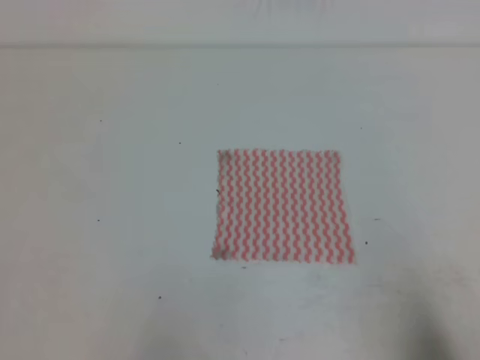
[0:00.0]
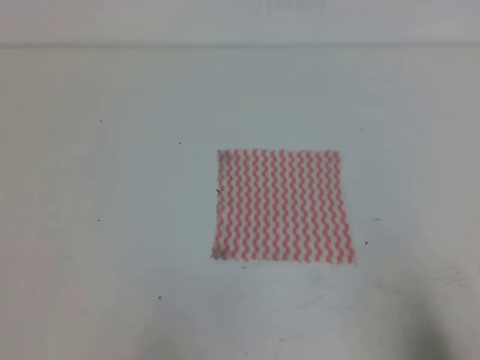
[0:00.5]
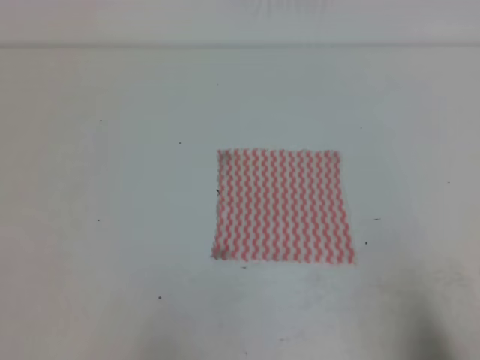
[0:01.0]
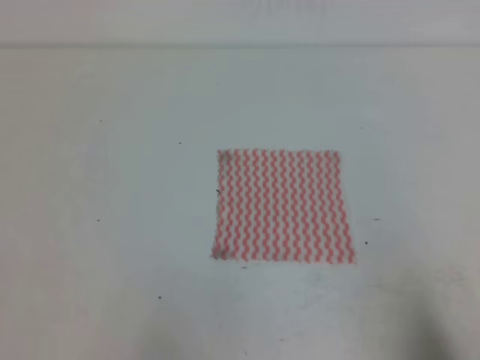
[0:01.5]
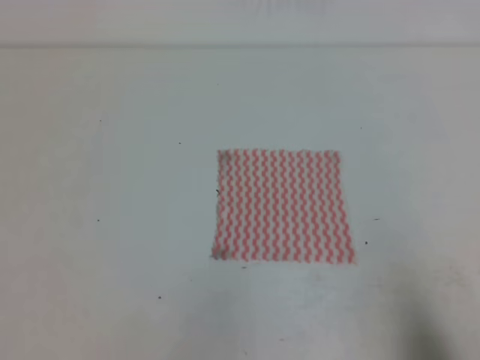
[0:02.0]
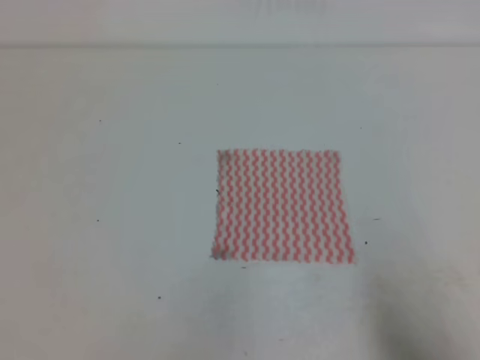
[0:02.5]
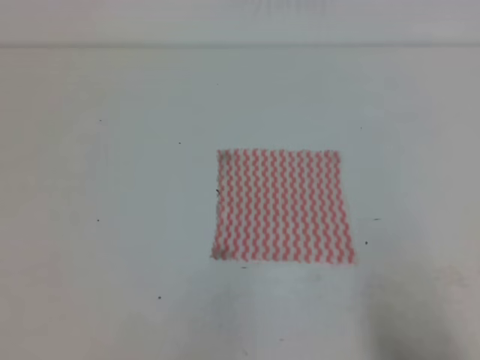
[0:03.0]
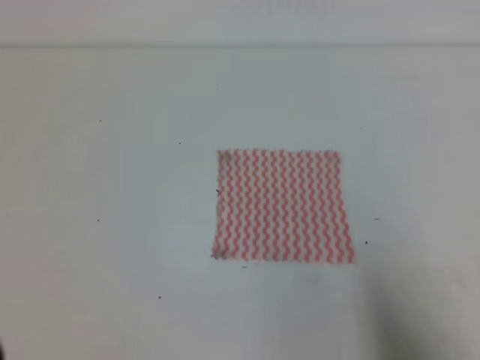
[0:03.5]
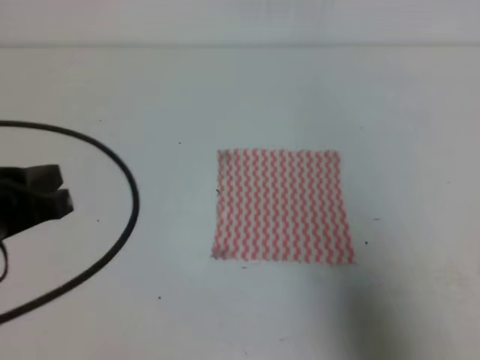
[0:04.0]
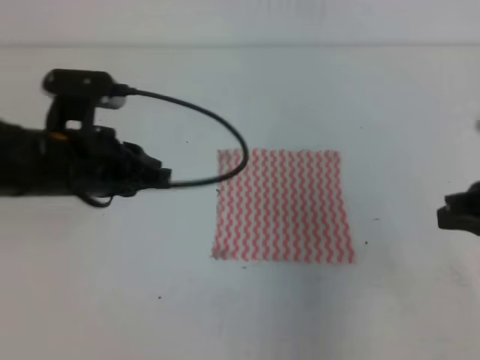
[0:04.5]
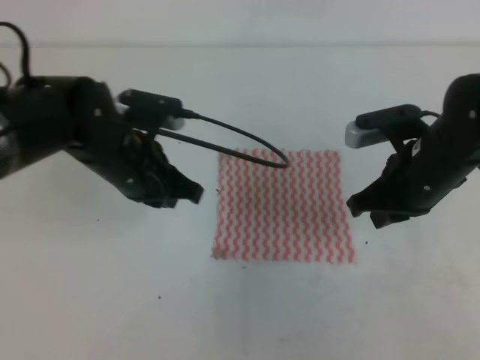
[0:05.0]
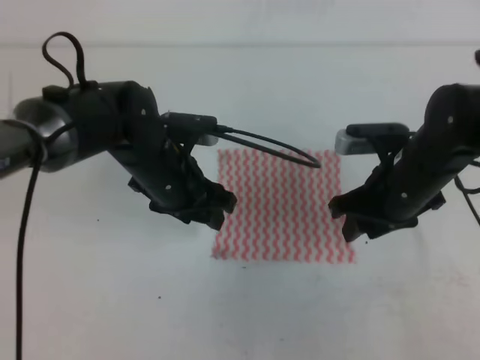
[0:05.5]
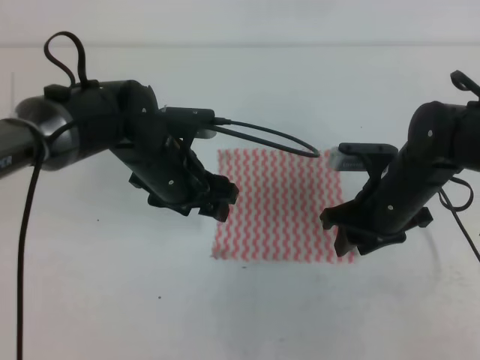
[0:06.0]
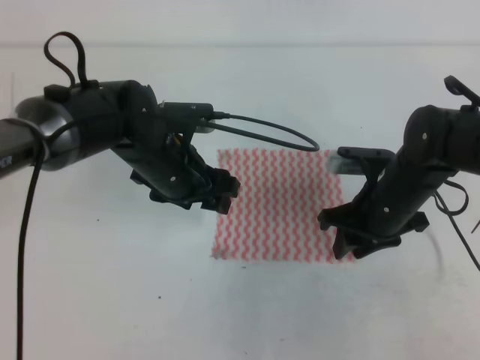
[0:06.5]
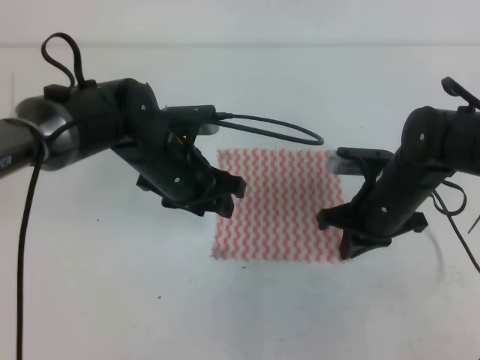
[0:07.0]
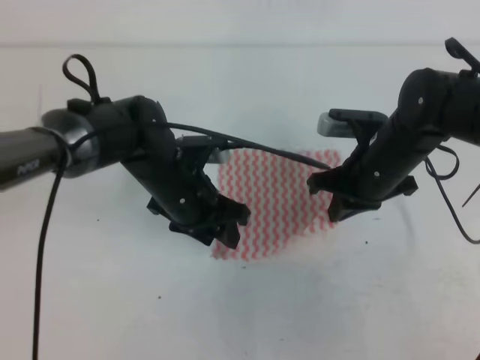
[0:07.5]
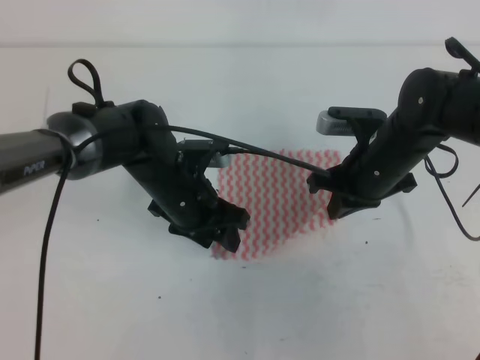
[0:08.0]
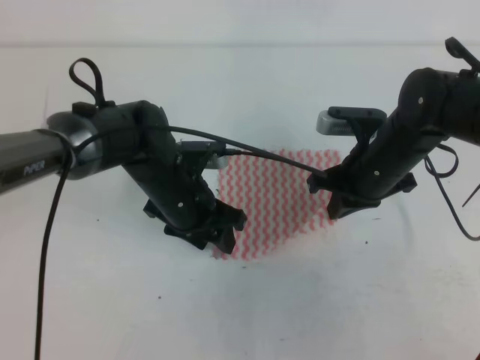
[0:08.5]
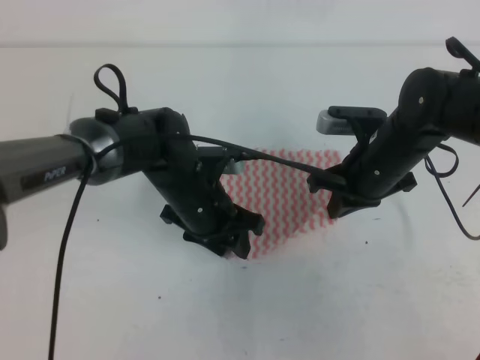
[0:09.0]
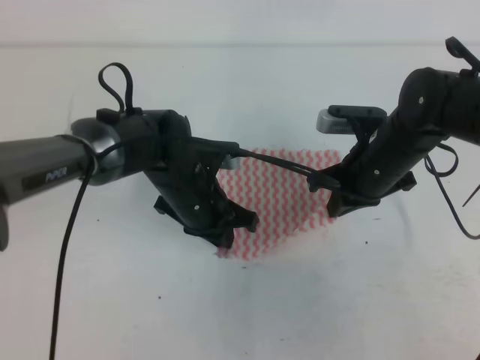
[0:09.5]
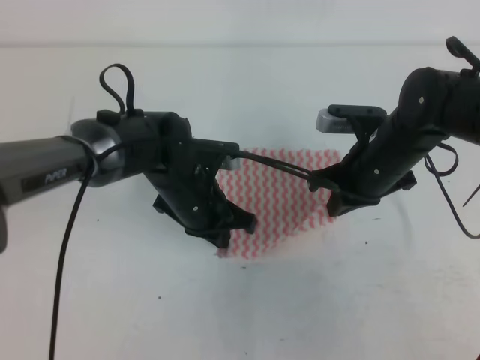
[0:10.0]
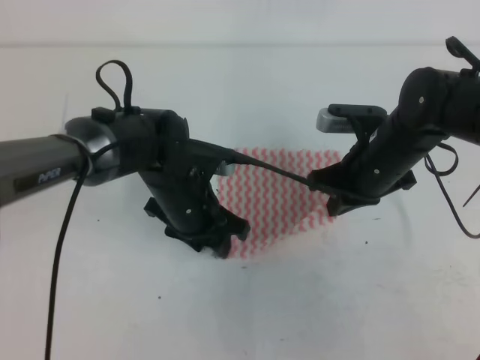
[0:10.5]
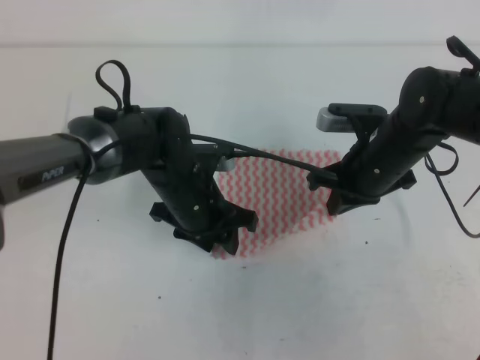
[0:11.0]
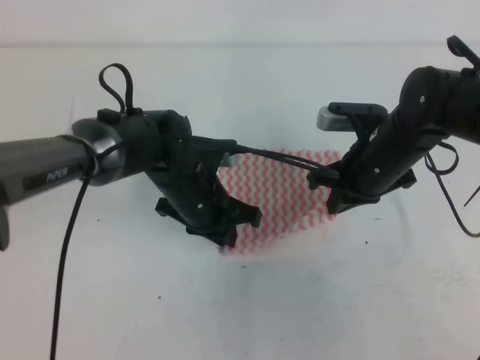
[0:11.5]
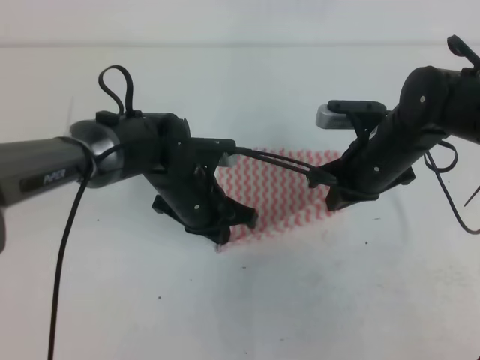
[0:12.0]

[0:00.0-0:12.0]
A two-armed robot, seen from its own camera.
0:02.0 to 0:04.0: The left gripper is displaced forward and upward by about 15 cm, while the right gripper shifts approximately 5 cm upward.
0:04.0 to 0:06.0: The right gripper shifts roughly 25 cm forward and to the left, and opens its fingers. Meanwhile the left gripper heads forward, to the right and downward, covering approximately 25 cm, and opens up.
0:06.0 to 0:08.0: The right gripper closes up.
0:08.0 to 0:10.0: The left gripper closes its fingers.
0:10.0 to 0:12.0: The left gripper opens, then closes once more.

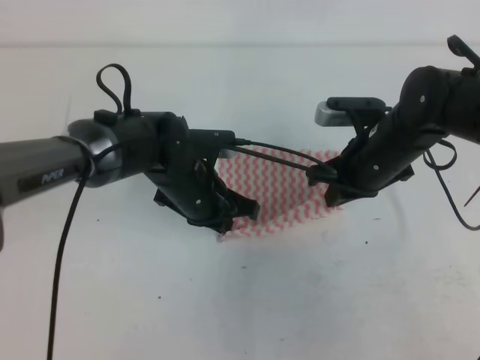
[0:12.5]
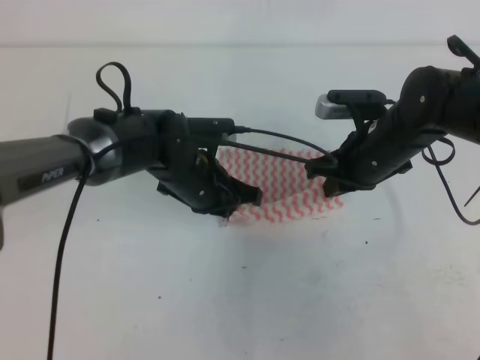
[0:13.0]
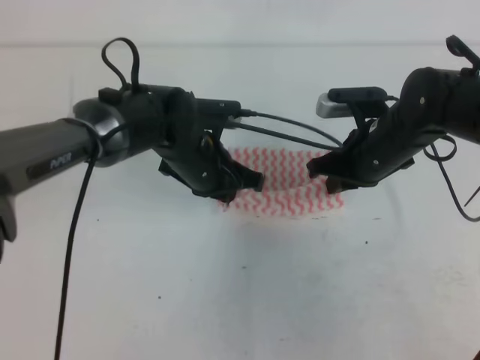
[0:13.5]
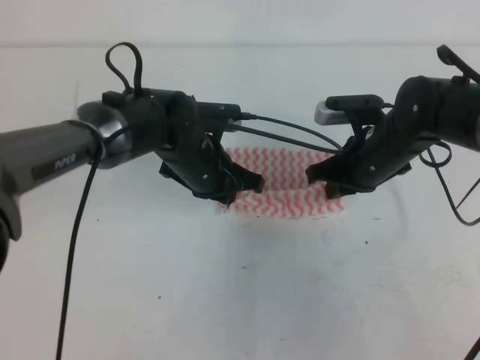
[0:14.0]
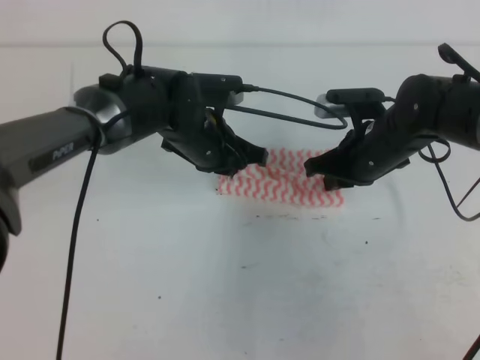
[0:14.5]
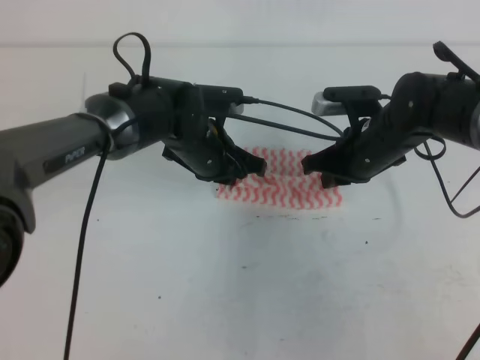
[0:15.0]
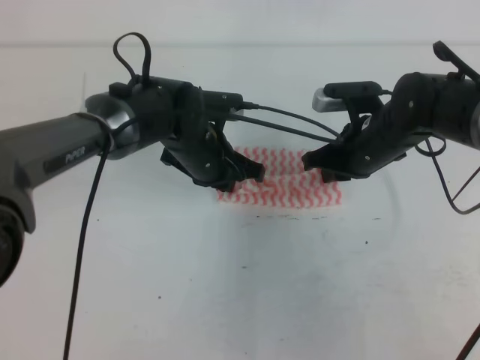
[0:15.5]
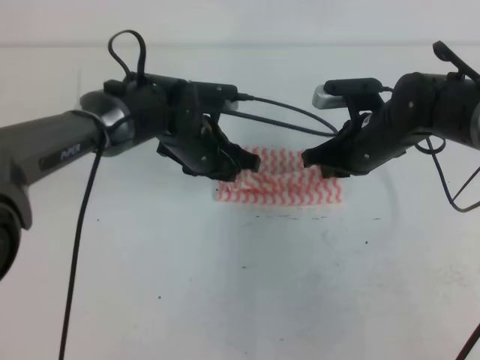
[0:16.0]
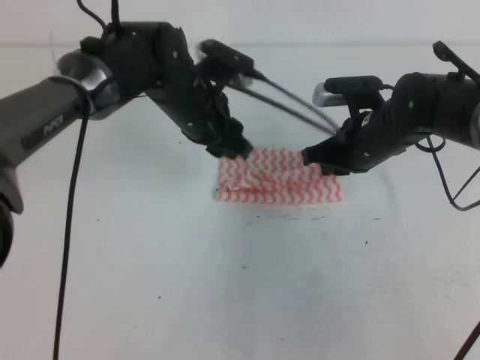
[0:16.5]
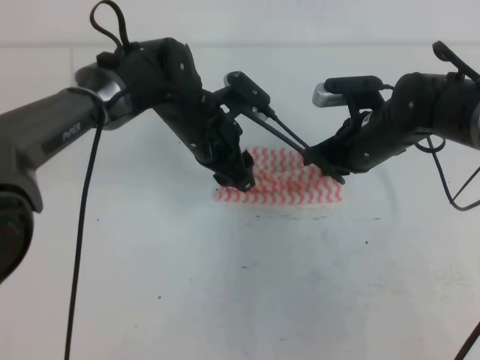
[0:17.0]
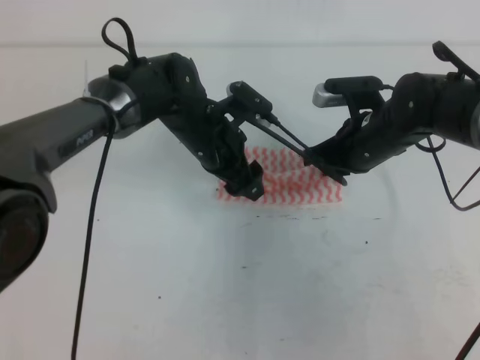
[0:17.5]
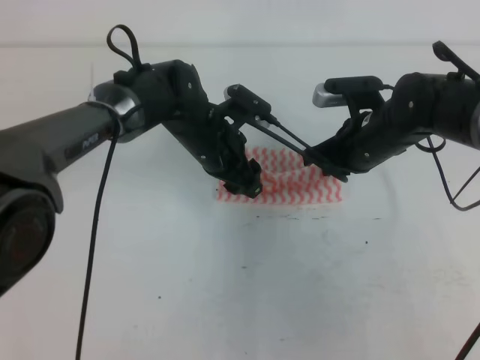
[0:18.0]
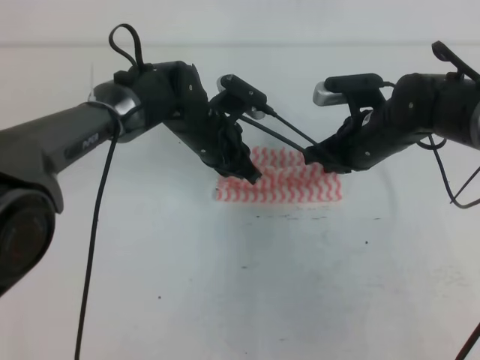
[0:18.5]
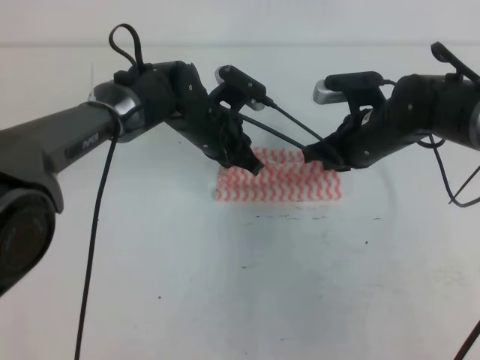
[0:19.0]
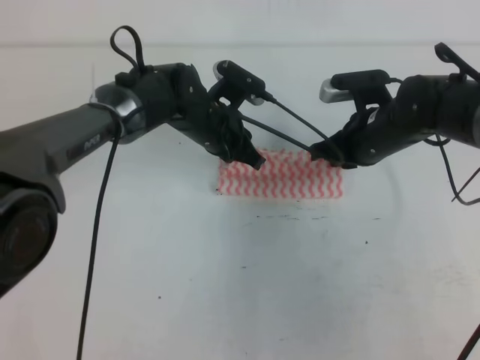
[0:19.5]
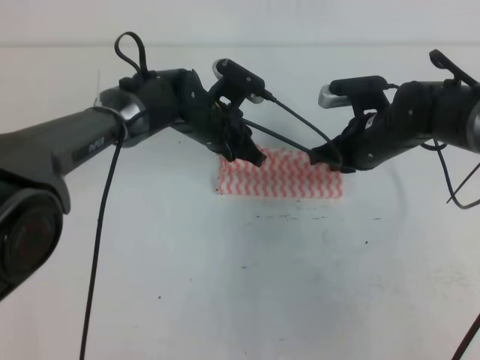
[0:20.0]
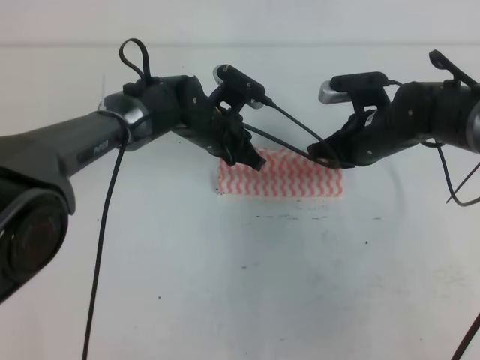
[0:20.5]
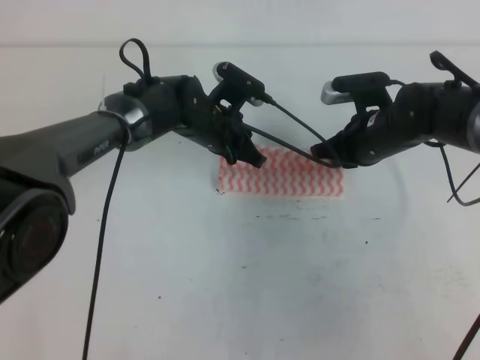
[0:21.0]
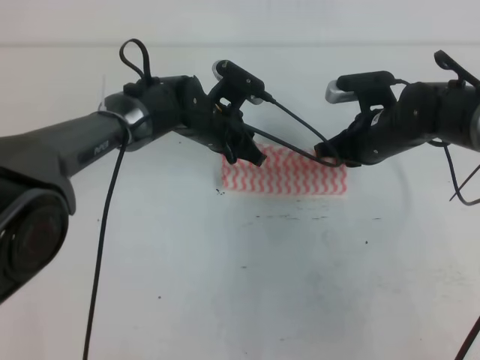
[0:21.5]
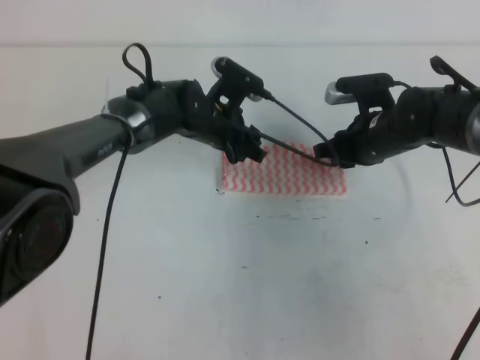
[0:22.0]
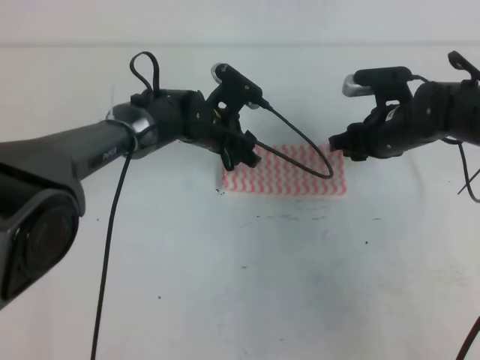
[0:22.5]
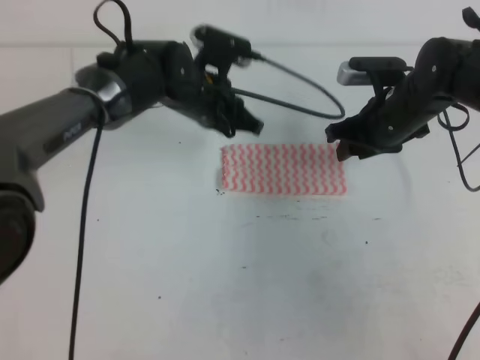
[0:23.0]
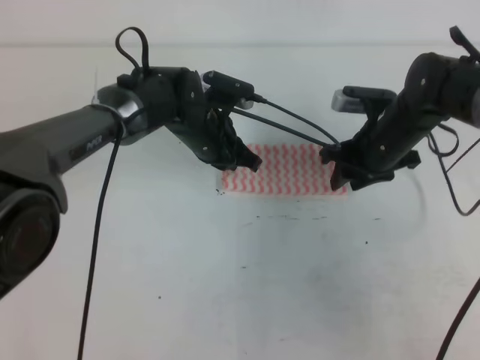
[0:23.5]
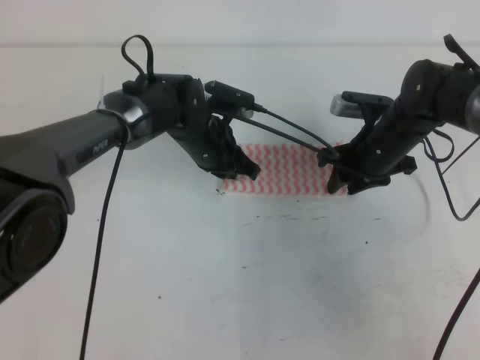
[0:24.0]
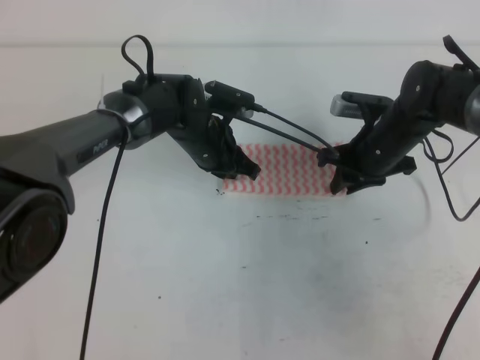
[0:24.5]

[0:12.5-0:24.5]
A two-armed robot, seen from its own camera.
0:12.5 to 0:14.5: The left gripper shifts by roughly 5 cm.
0:14.5 to 0:16.5: The left gripper opens.
0:16.5 to 0:18.5: The left gripper shifts by roughly 5 cm, and closes its fingers.
0:18.5 to 0:20.5: The grippers move only a little.
0:20.5 to 0:22.5: The left gripper opens its fingers. The right gripper opens.
0:22.5 to 0:24.5: The right gripper closes up; the left gripper closes its fingers.

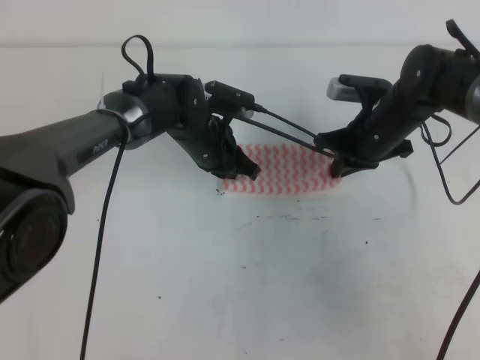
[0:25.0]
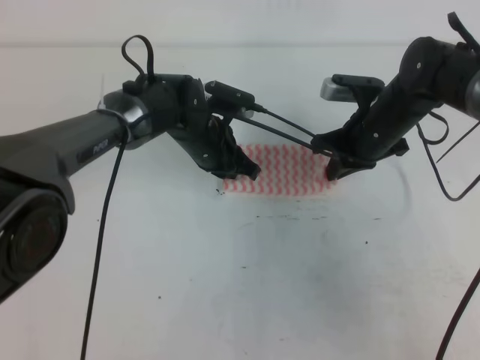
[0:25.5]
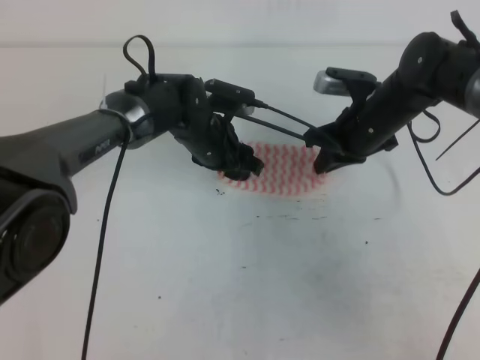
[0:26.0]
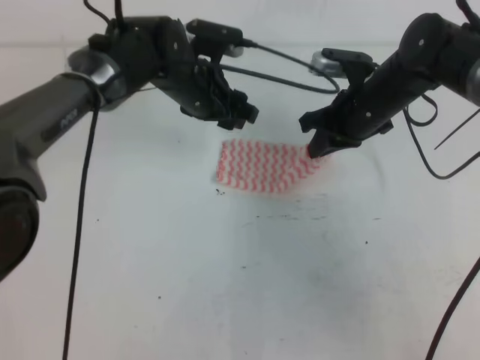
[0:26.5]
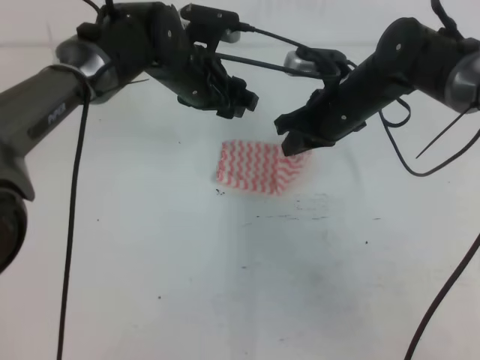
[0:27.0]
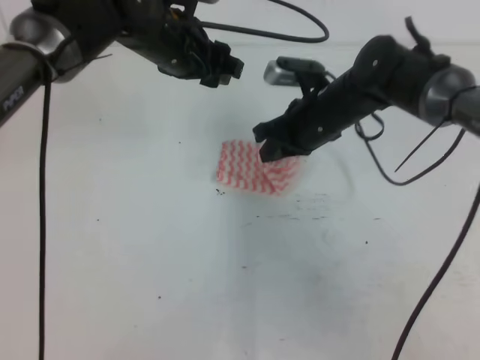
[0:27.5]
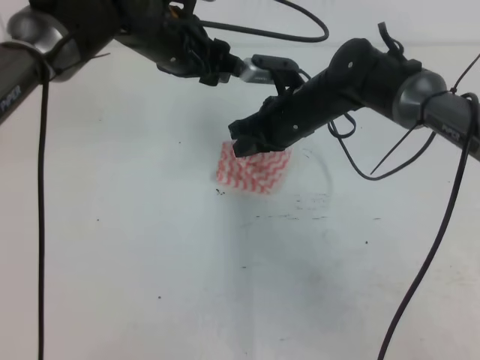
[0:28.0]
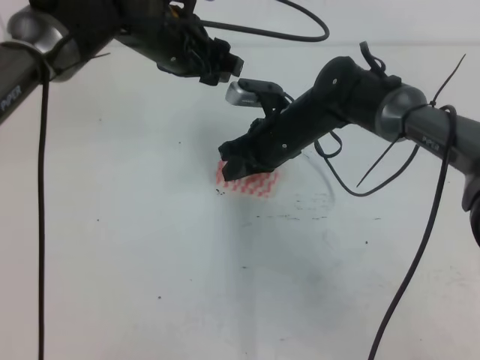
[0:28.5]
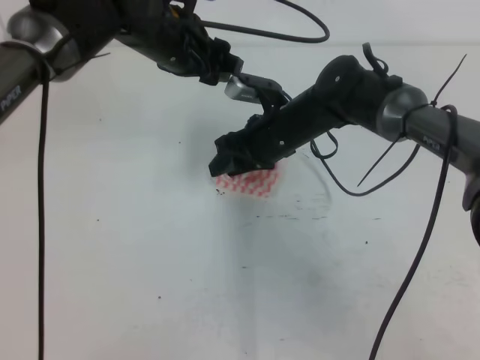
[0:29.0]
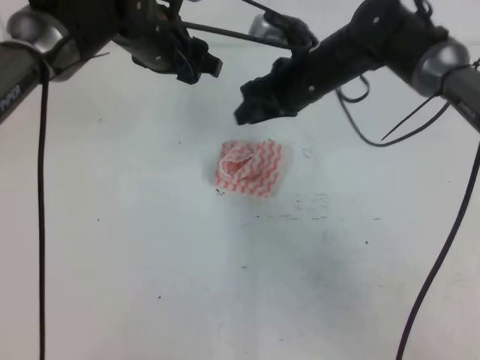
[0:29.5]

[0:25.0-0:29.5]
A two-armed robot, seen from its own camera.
0:25.0 to 0:27.0: The right gripper shifts by about 5 cm. The left gripper heads upward, covering about 10 cm, and opens up.
0:27.0 to 0:29.5: The right gripper opens, while the left gripper ends up approximately 5 cm from where it was.
